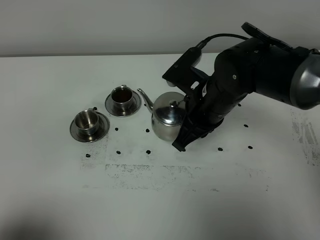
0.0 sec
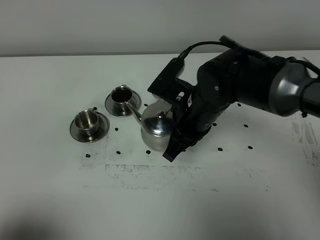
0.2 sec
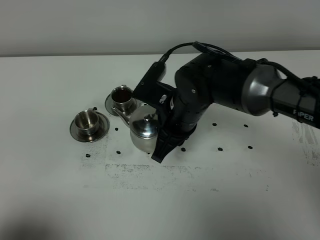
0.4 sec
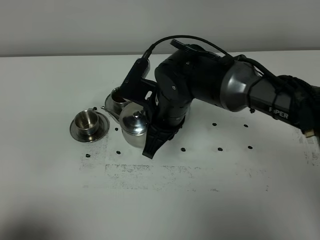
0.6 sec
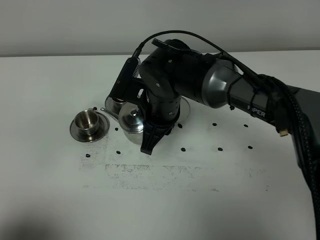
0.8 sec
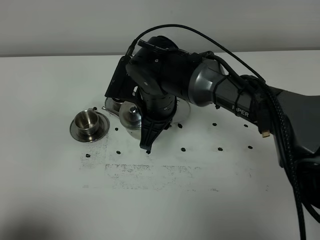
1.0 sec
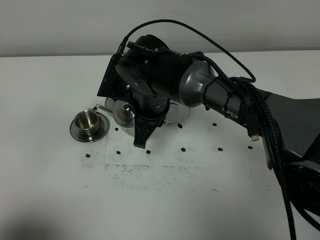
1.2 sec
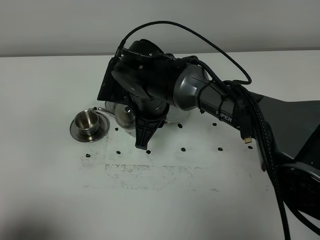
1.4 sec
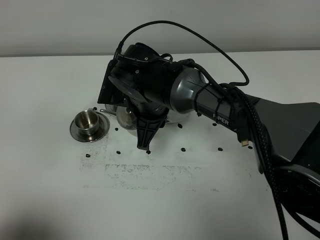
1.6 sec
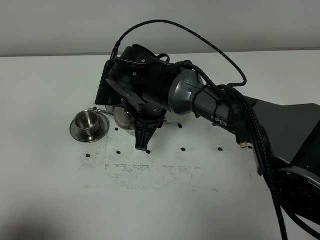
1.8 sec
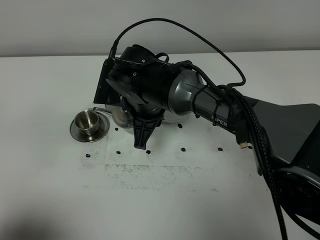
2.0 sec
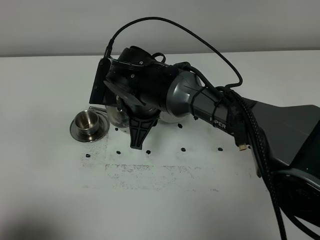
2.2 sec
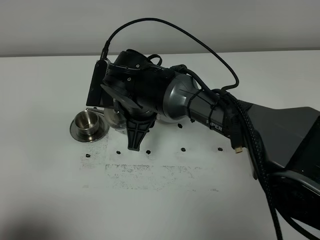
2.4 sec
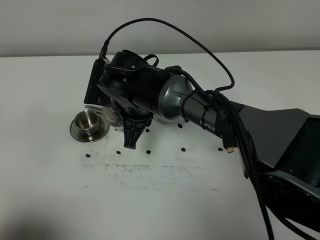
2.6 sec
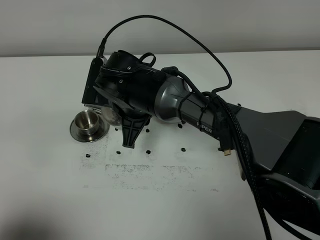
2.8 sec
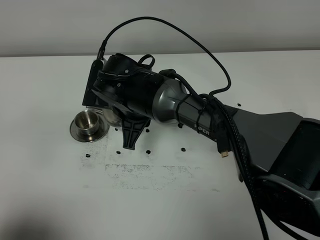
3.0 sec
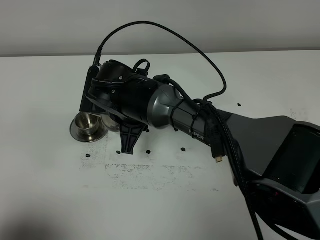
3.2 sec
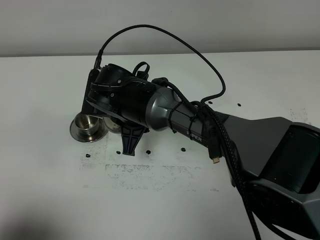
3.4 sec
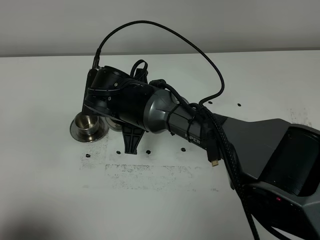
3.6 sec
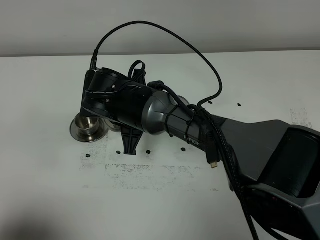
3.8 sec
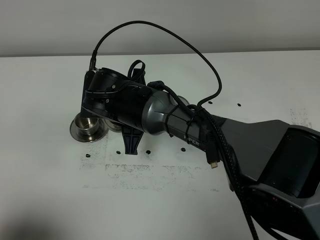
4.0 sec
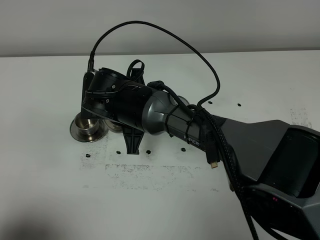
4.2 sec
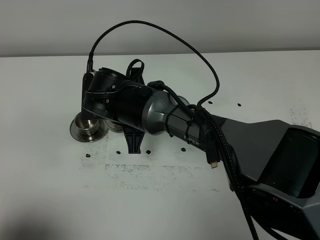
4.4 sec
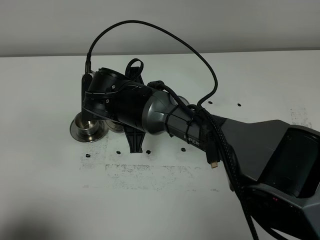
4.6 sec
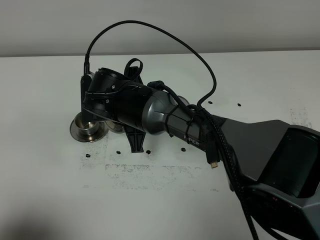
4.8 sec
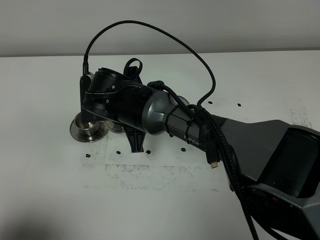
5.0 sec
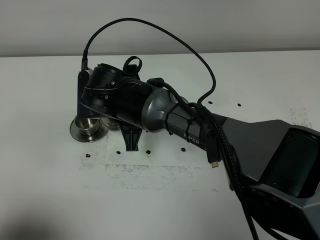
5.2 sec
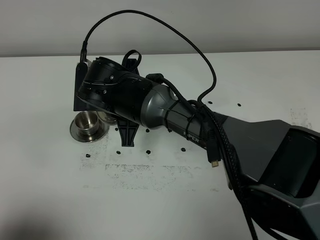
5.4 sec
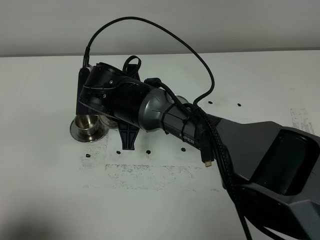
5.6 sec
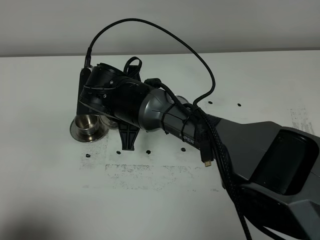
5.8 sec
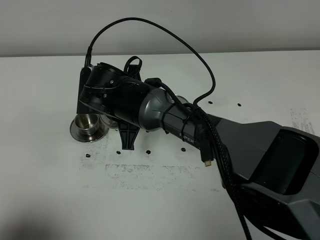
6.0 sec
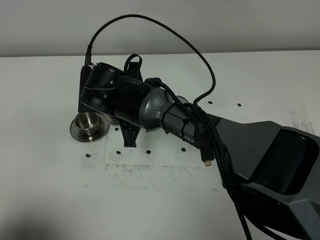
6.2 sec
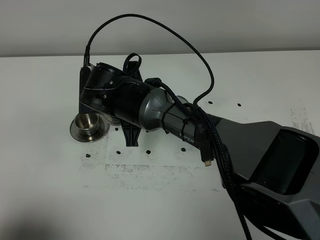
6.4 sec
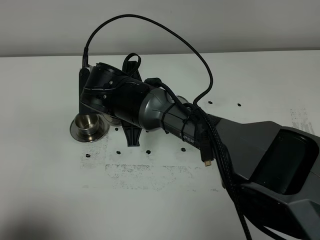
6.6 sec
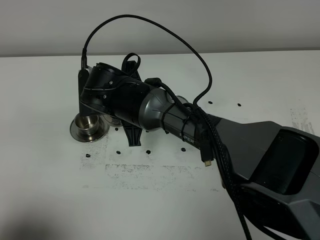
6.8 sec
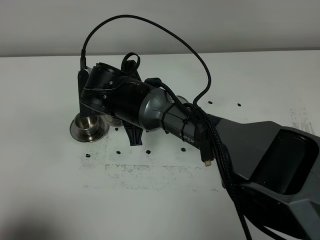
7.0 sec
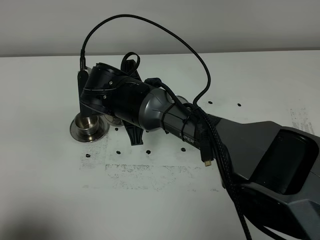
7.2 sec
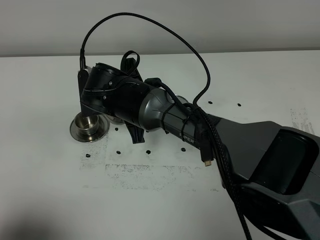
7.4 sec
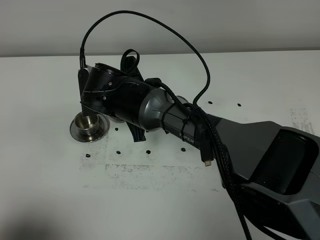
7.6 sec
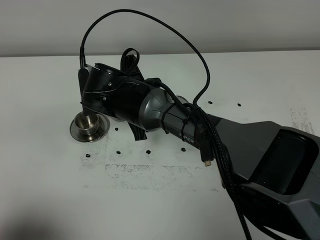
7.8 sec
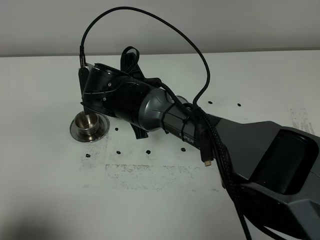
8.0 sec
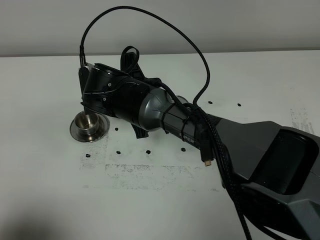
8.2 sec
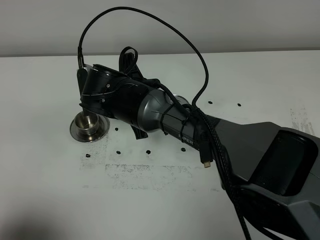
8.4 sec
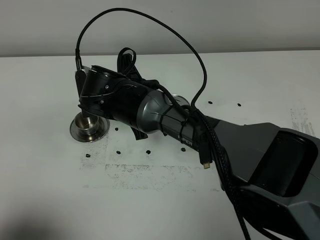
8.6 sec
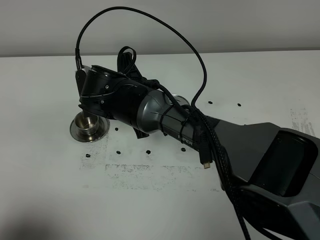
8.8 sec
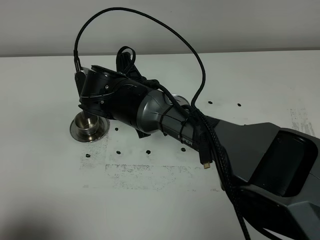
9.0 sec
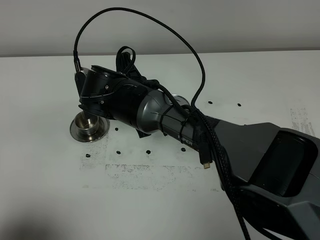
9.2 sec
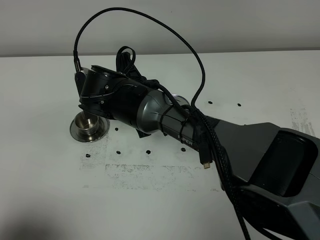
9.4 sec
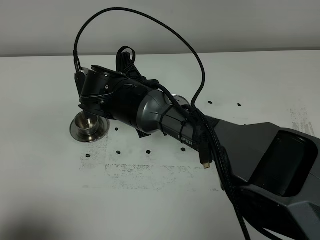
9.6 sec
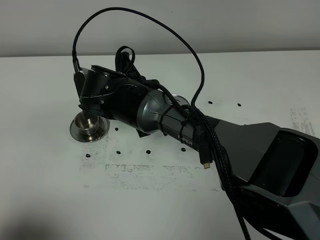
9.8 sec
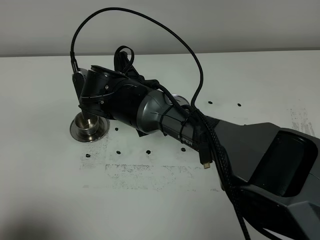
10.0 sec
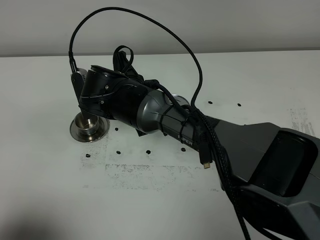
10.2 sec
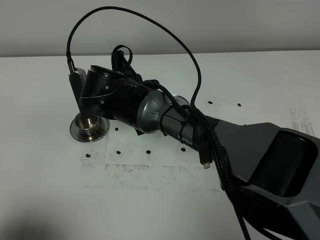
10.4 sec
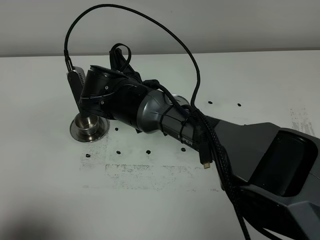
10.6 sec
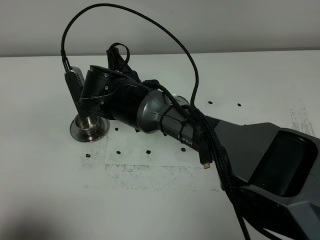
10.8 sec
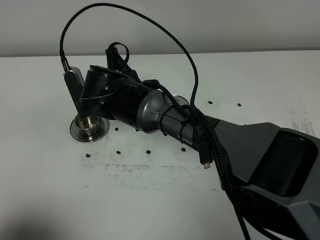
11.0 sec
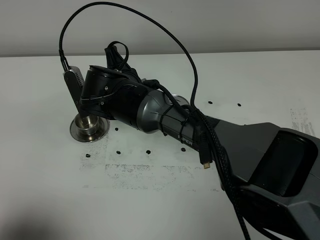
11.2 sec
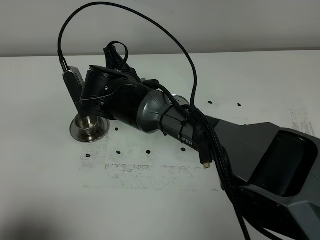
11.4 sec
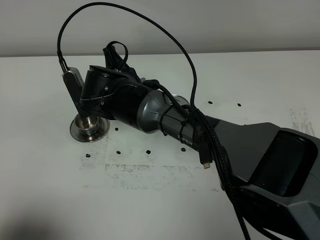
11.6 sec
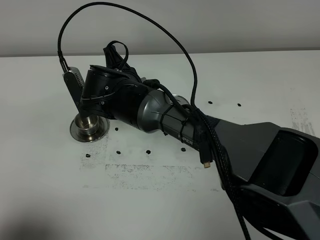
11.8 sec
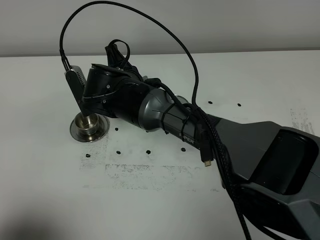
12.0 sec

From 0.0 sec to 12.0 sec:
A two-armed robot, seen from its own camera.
Task of the whole recording: grasp the stainless steel teapot and pour the tea into the two stainless steel teacups one by one, put the stainless steel teapot back in its original place.
From 0.0 sec to 1.6 sec: The right gripper goes about 10 cm to the left.
From 3.0 sec to 6.0 sec: The grippers stay close to where they were, moving slightly.
From 6.0 sec to 9.0 sec: There are only small adjustments of the grippers.
From 9.0 sec to 10.4 sec: Both grippers stay put.
From 10.4 sec to 12.0 sec: There are only small adjustments of the grippers.

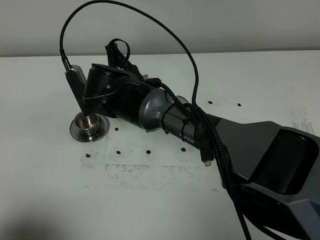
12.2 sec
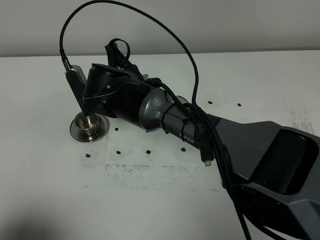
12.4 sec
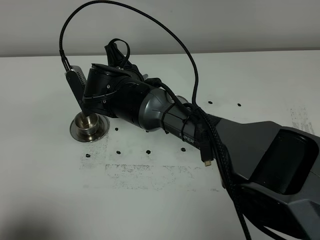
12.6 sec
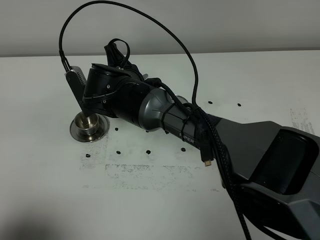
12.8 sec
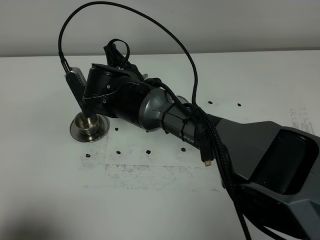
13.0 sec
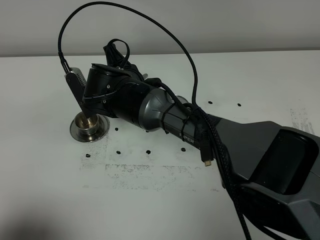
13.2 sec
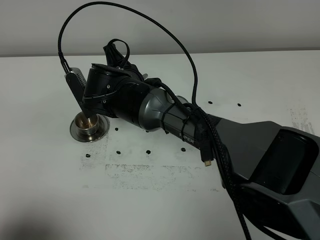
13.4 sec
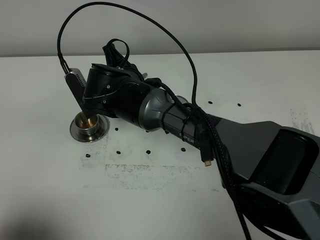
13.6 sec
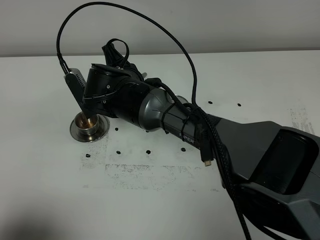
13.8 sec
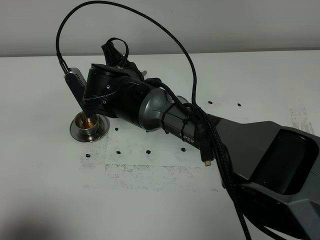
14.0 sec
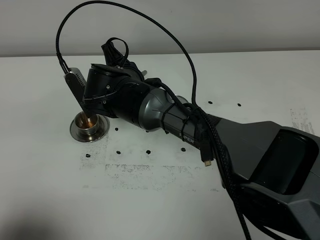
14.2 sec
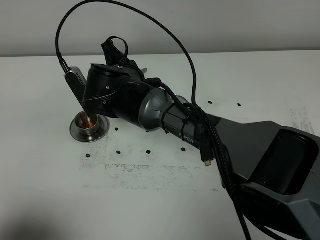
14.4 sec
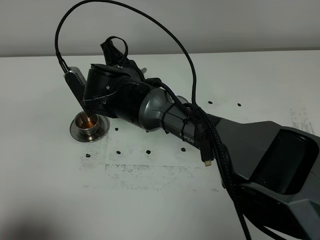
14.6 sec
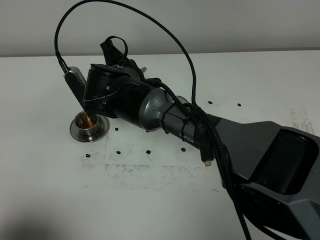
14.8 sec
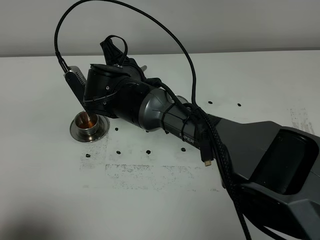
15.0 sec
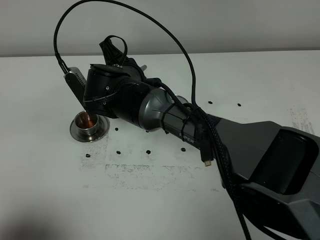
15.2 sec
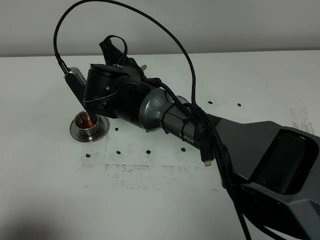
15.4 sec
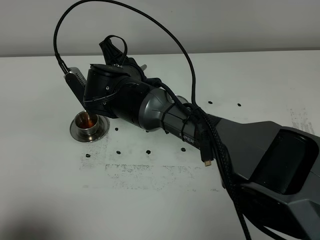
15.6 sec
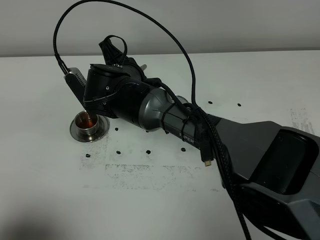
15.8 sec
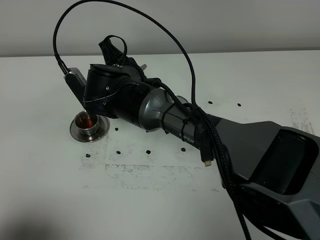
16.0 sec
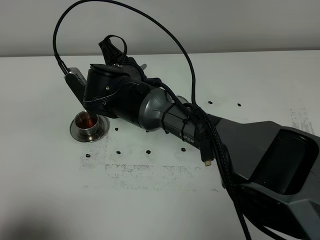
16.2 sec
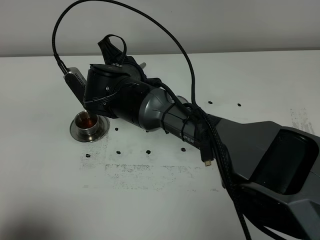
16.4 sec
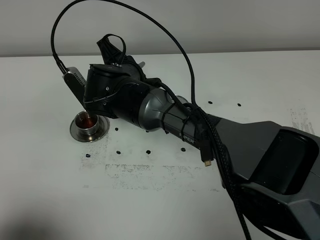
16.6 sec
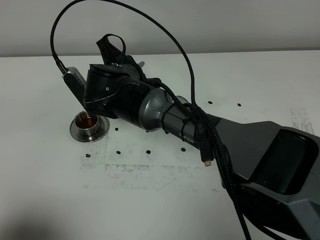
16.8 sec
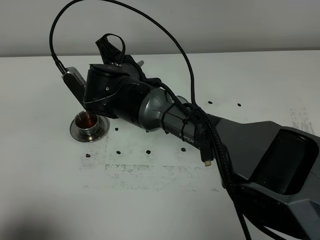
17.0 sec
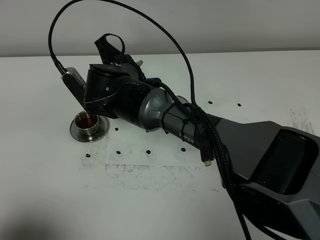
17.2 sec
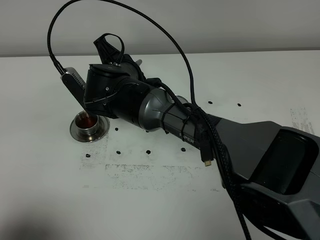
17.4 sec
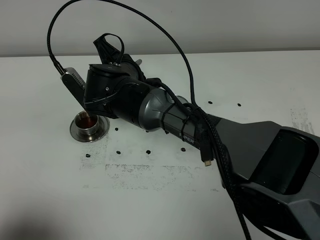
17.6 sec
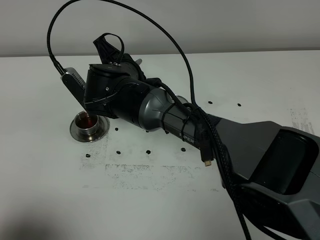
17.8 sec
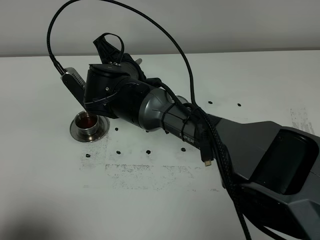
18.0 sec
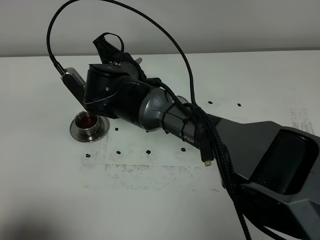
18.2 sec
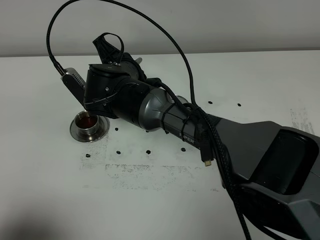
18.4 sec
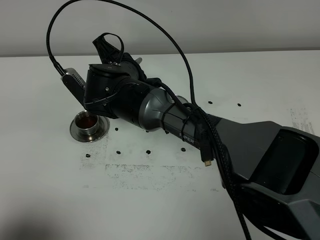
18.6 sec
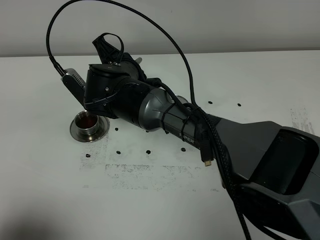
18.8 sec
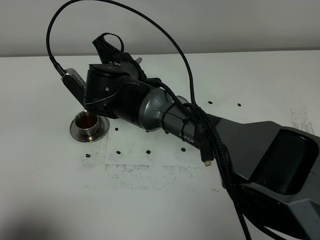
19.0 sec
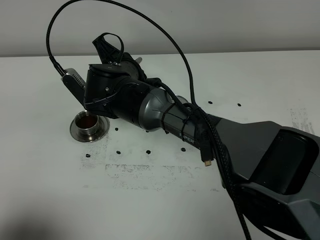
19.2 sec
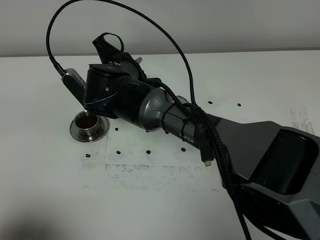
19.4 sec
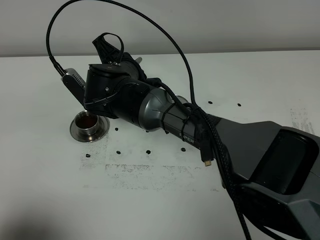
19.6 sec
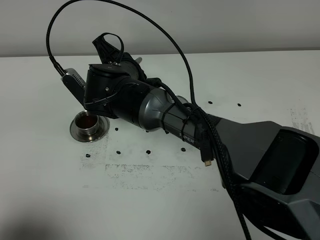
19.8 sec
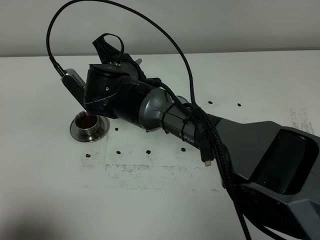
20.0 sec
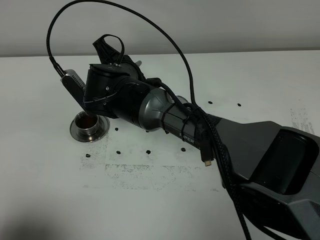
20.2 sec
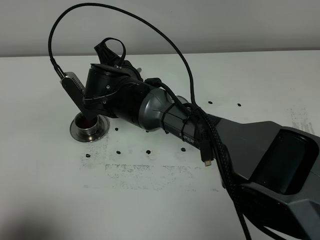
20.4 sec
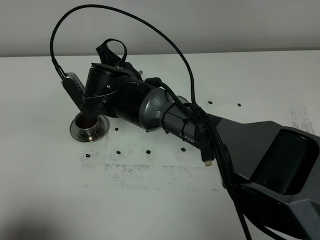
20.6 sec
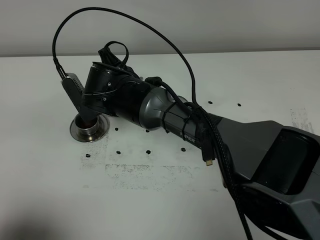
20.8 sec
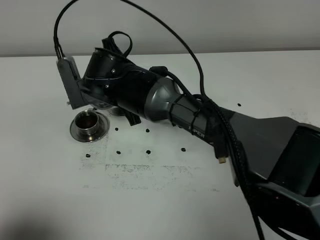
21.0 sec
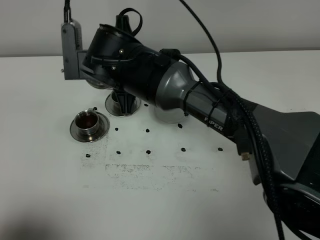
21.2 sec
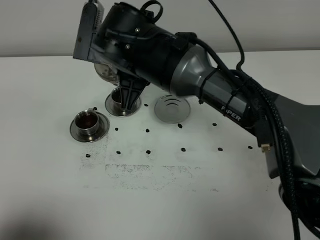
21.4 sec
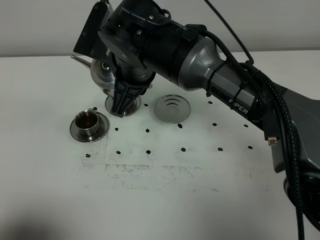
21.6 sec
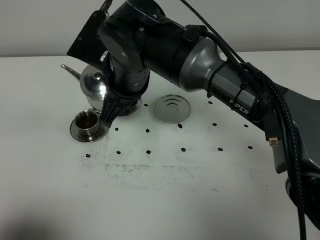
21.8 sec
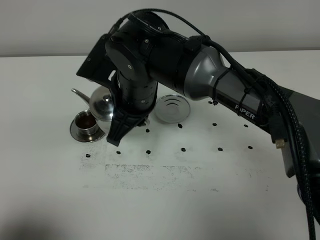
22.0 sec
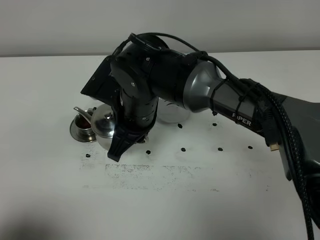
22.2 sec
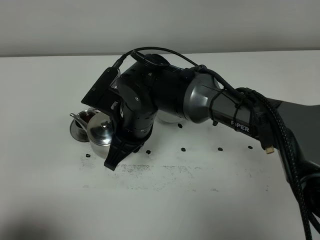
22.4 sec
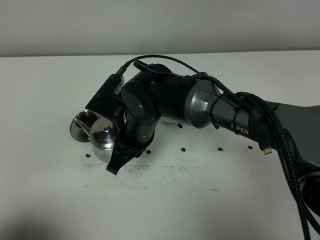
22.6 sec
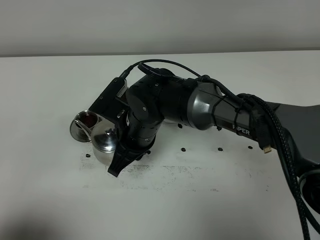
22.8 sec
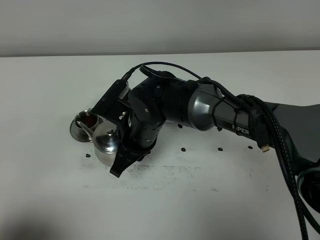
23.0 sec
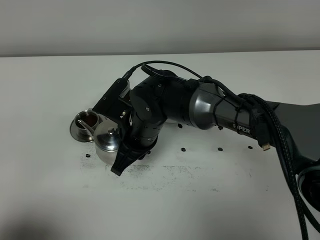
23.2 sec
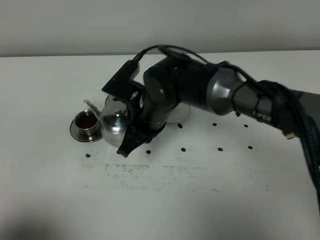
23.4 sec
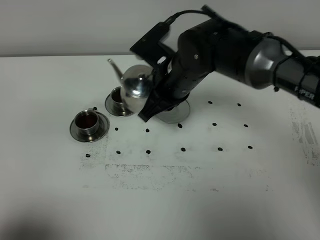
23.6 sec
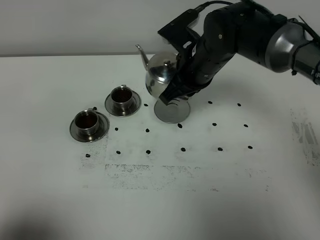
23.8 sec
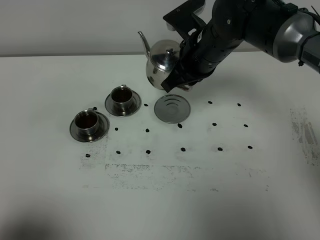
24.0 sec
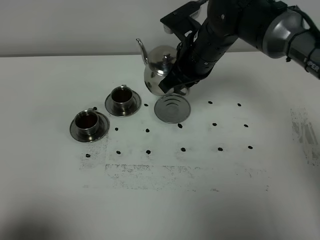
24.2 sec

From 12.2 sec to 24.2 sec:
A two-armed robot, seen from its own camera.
Task of the whole recording: grasp the stainless steel teapot and pour the tea into the two stainless steel teacups one by one, put the stainless steel teapot back in its original place.
Step, from 12.2 sec to 21.0 sec: Pour tea into the teacup with the right gripper.
From 12.2 sec to 13.8 sec: Both grippers stay about where they are.
From 13.8 sec to 15.2 sec: The two grippers keep their place.
From 15.2 sec to 16.6 sec: Both grippers stay about where they are.
From 16.6 sec to 19.8 sec: Neither gripper changes place.
From 19.8 sec to 21.2 sec: The right gripper travels upward by roughly 5 cm.
From 21.2 sec to 22.6 sec: The right gripper travels downward by some 10 cm.
From 22.6 sec to 24.2 sec: The right gripper travels to the right, forward and upward by about 15 cm.
